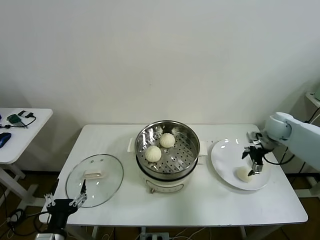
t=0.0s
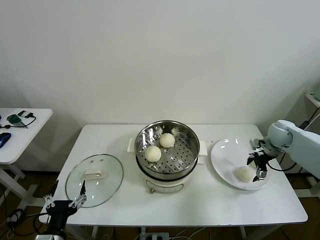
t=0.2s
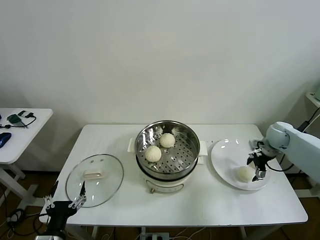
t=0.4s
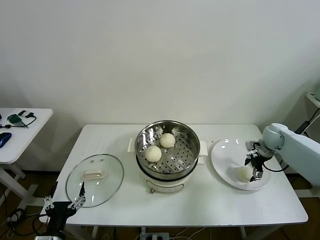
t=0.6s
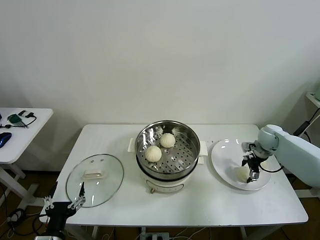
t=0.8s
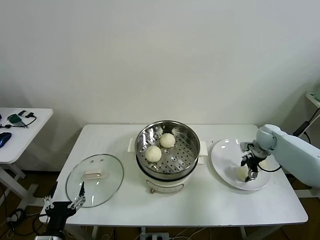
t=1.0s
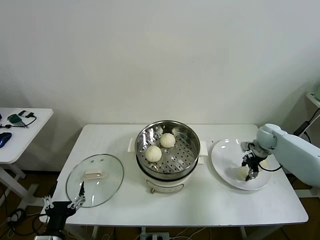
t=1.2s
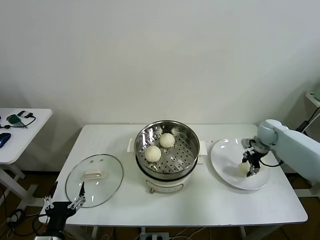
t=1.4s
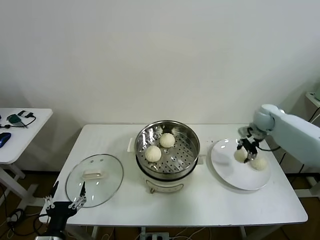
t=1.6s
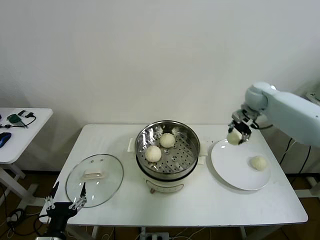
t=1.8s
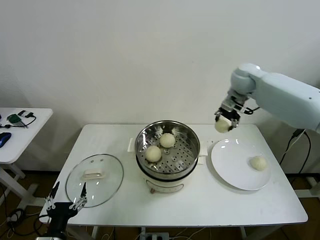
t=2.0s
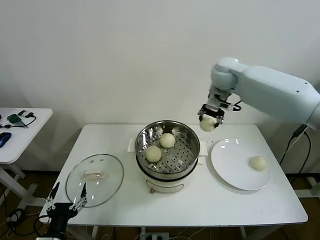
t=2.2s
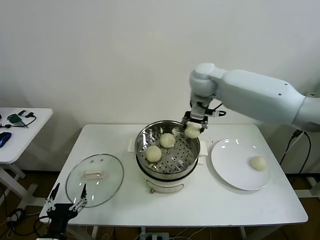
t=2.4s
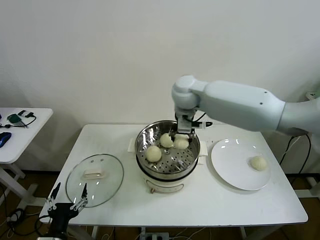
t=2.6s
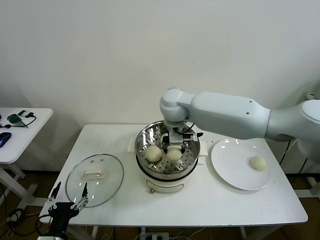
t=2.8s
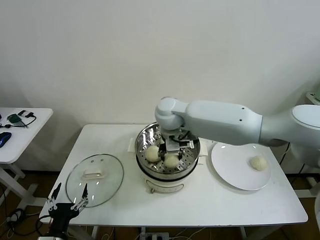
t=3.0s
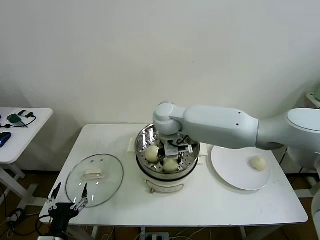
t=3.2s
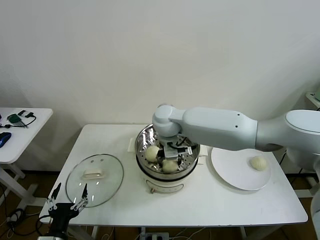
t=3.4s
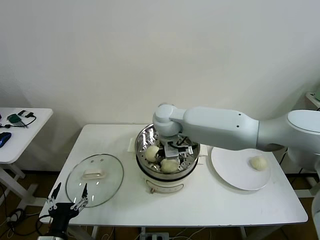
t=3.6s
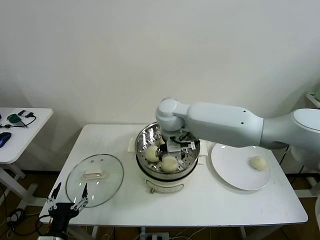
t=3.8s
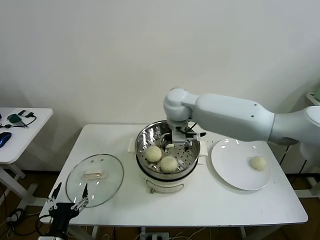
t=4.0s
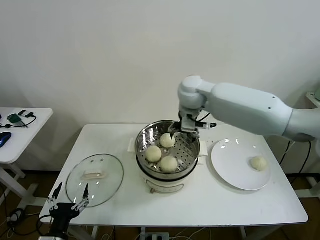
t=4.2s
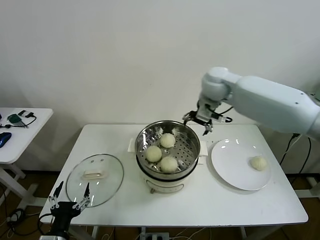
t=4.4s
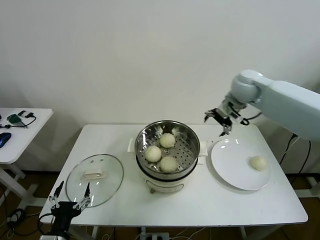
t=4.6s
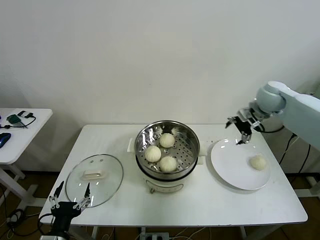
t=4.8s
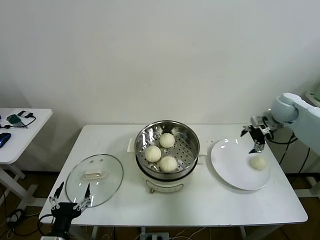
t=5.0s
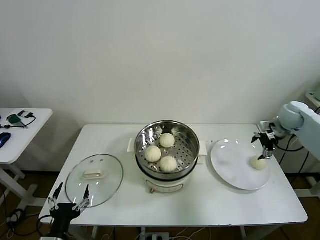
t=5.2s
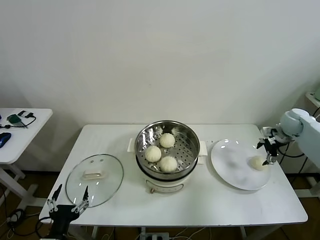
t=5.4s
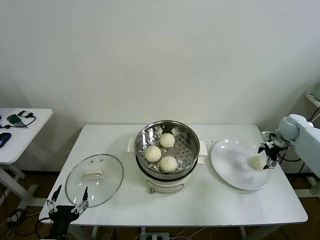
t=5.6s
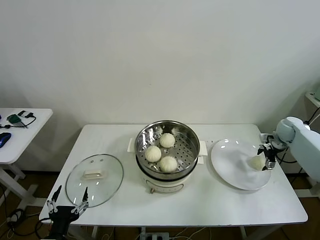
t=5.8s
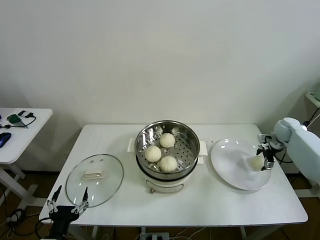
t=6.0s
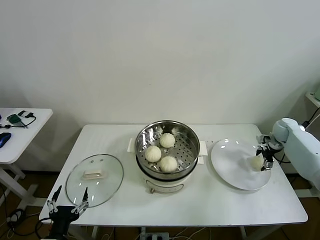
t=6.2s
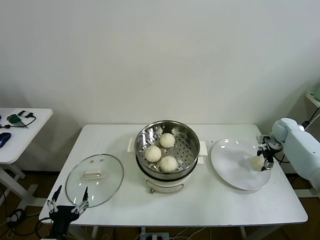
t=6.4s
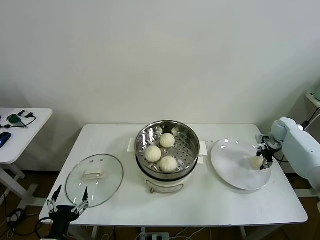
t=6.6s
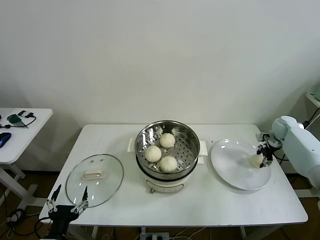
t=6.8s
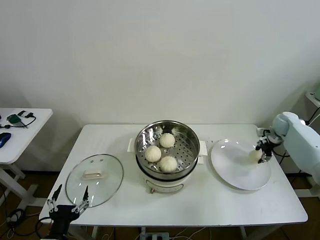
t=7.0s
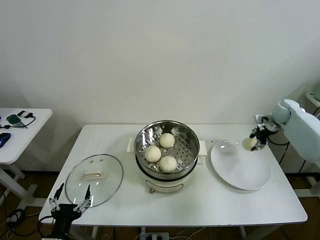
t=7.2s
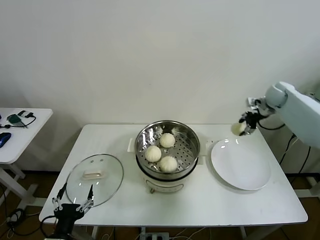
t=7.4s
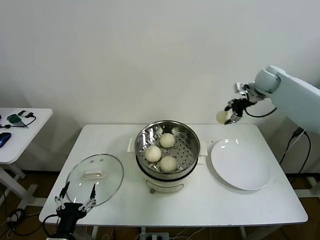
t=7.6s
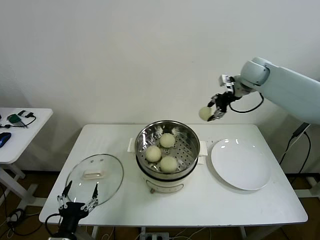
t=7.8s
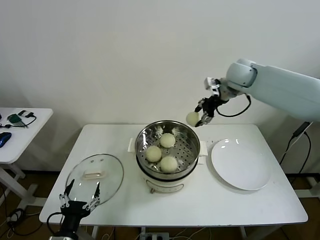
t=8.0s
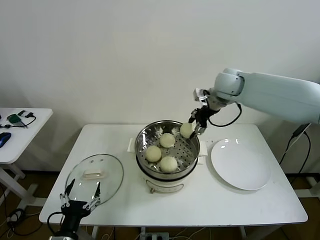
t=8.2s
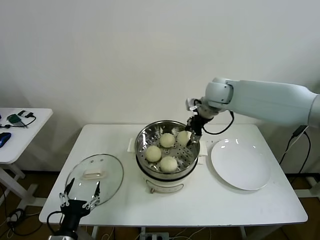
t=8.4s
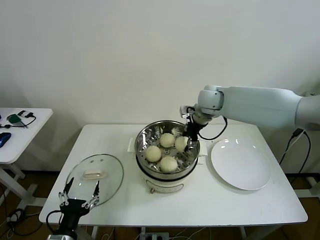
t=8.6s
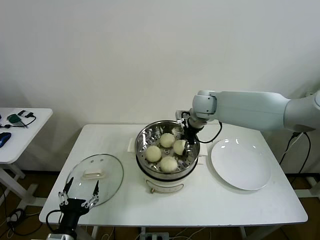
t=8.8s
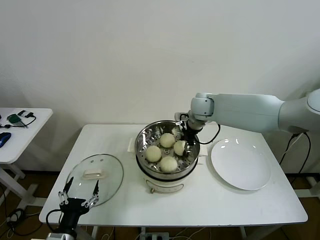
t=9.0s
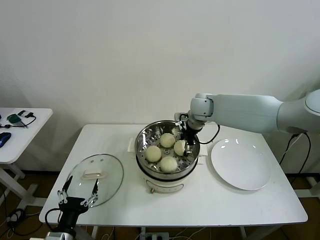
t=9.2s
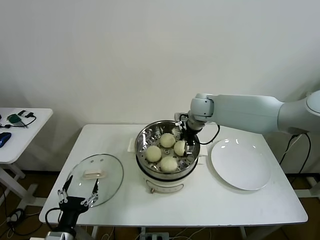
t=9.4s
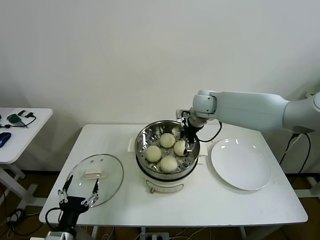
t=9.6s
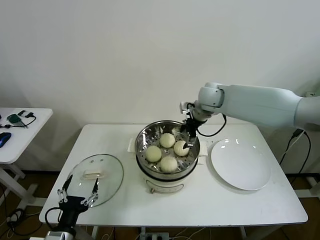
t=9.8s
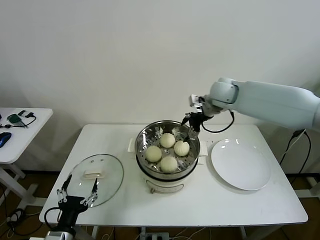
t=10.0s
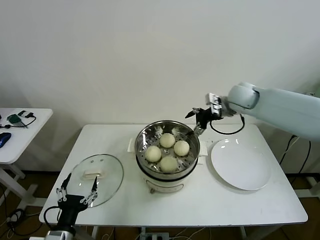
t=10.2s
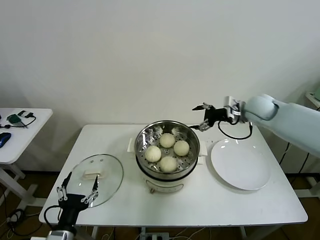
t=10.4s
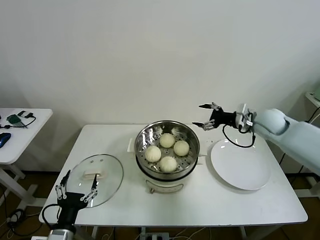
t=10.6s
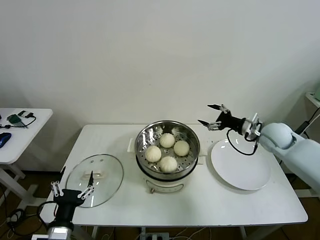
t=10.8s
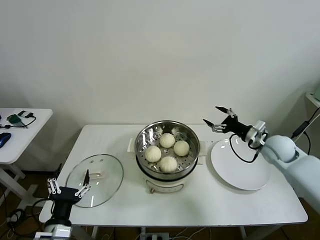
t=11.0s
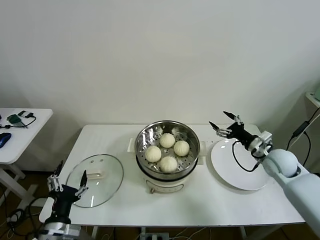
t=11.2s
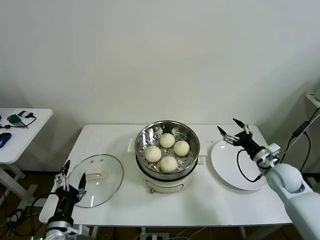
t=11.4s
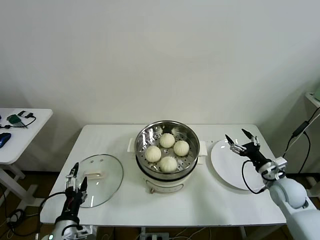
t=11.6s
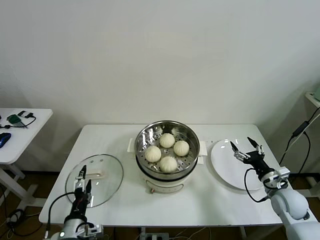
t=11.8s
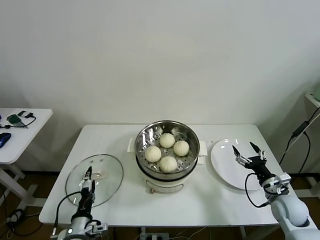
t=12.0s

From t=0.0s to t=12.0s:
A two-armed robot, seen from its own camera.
Task of the whole recording: take steamed baozi put them in steamer then cover it.
Step, from t=1.2s to t=3.6s: Place the baozi on the steamer with right gripper.
Step, from t=3.8s to t=6.6s: Grasp the baozi in the plate with right gripper.
Step, from t=6.8s to t=9.2s: Place the baozi on the steamer with right gripper.
From t=0.0s to t=1.6s: The right gripper travels forward, upward and to the left by roughly 10 cm, and closes up.
From t=1.6s to t=3.0s: The right gripper heads to the left, covering roughly 35 cm.
From t=3.0s to t=4.4s: The right gripper moves to the right and upward, some 20 cm, and opens up.
From t=4.4s to t=6.0s: The right gripper heads to the right and downward, covering about 35 cm.
From t=6.0s to t=7.6s: The right gripper moves upward and to the left, about 25 cm, and closes up.
From t=7.6s to t=9.0s: The right gripper moves to the left, about 20 cm.
From t=9.0s to t=10.4s: The right gripper is displaced to the right by approximately 20 cm, and opens its fingers.
From t=10.4s to t=12.0s: The left gripper moves downward and forward, some 10 cm, while the right gripper goes some 35 cm downward and backward.

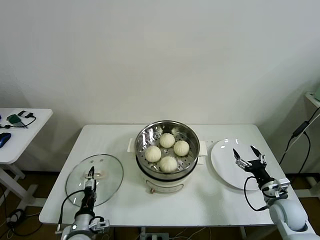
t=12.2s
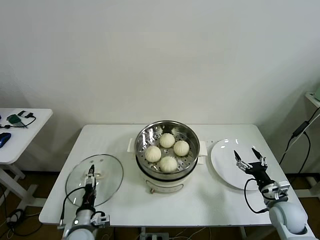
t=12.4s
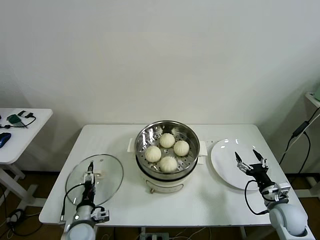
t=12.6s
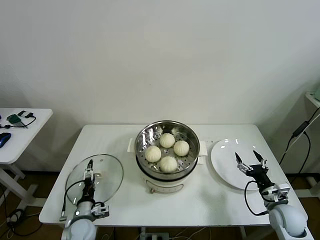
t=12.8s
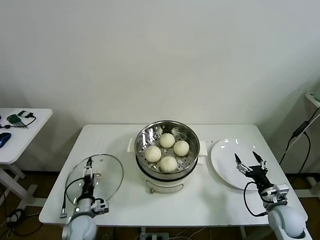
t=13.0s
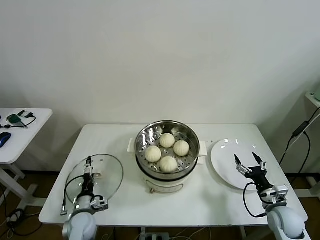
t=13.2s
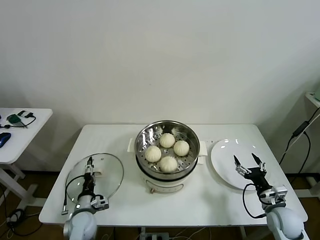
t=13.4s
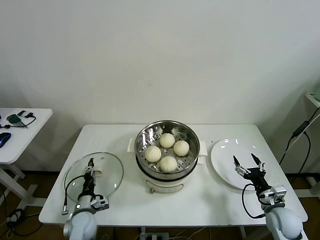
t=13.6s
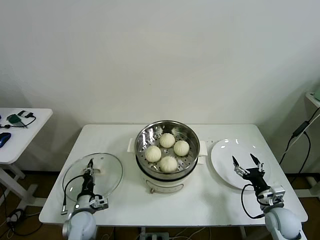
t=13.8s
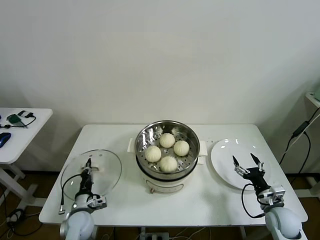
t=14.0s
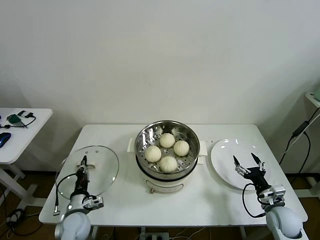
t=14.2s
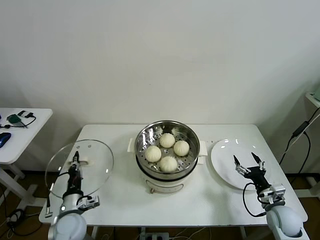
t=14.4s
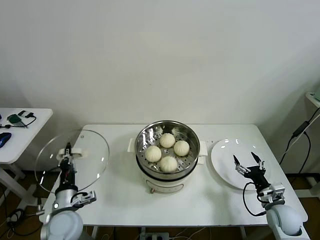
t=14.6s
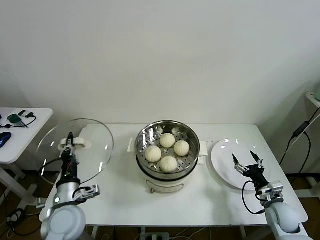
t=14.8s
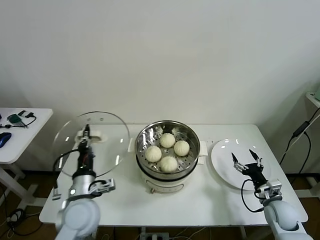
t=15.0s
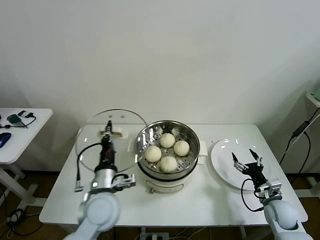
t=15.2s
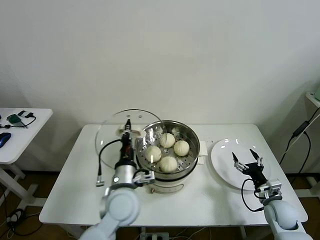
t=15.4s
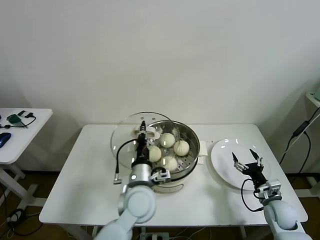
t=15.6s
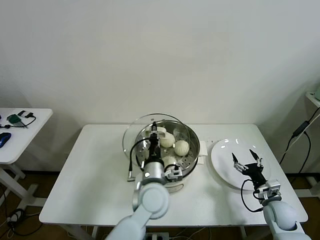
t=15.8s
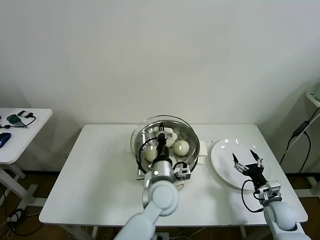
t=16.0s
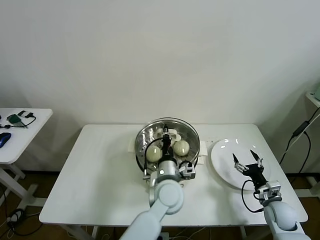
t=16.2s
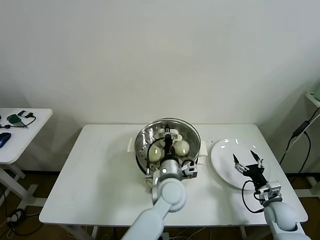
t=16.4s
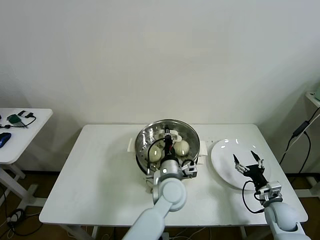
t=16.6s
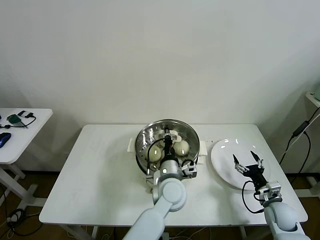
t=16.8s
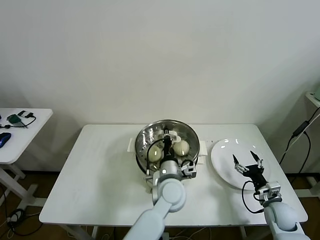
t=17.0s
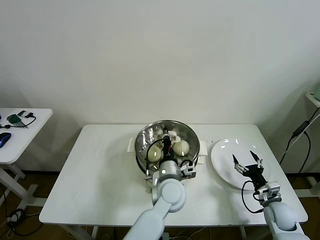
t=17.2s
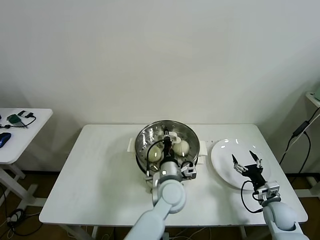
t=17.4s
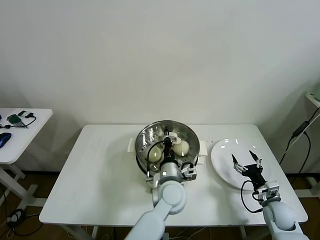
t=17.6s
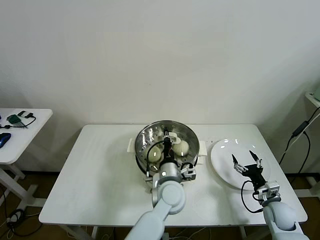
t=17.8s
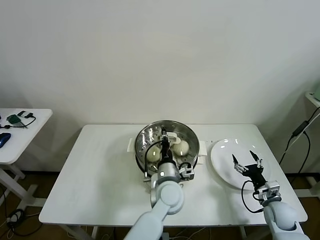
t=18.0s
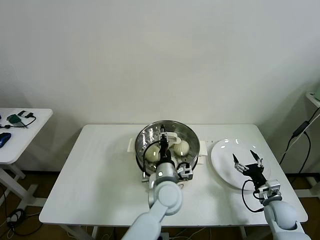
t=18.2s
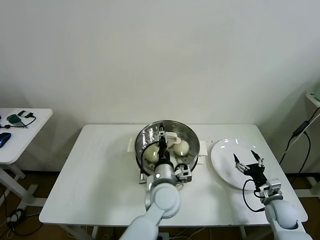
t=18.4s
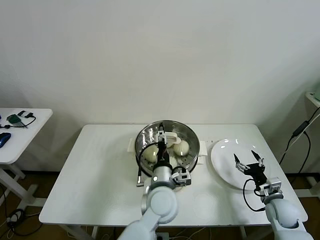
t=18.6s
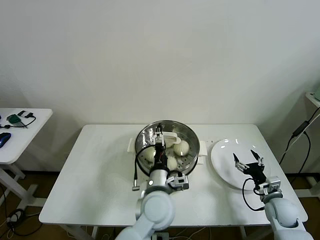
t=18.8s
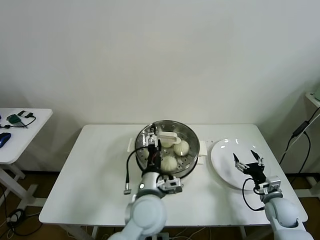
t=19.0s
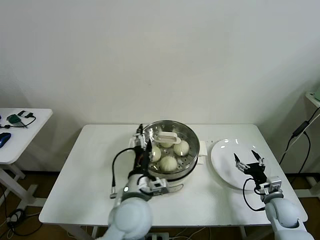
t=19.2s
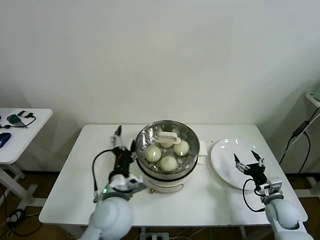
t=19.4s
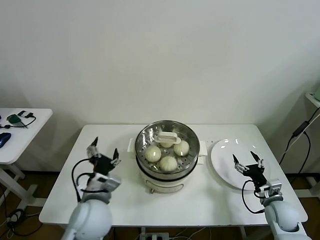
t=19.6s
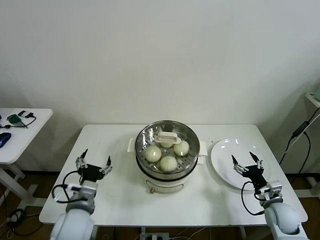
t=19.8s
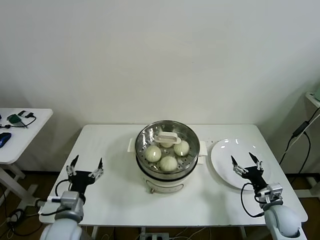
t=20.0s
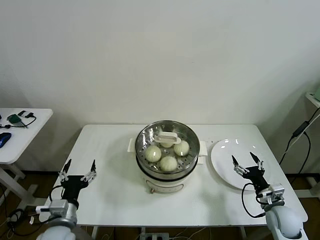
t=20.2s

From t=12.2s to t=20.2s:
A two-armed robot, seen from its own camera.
Task of the whole recording: take steamed baozi put them in steamer then cover it.
Step, from t=14.0s to t=18.4s: Place the pot lid on the steamer with left gripper.
From t=12.2s to t=13.8s: The left gripper travels forward and downward by some 10 cm, and closes its fingers.
From t=13.8s to t=15.4s: The left gripper heads upward and to the right, covering about 25 cm.
From t=15.4s to t=17.0s: The left gripper is displaced to the right by about 15 cm.
From t=17.0s to t=18.6s: The left gripper opens.
From t=18.6s to t=20.2s: The left gripper heads to the left, covering roughly 30 cm.
